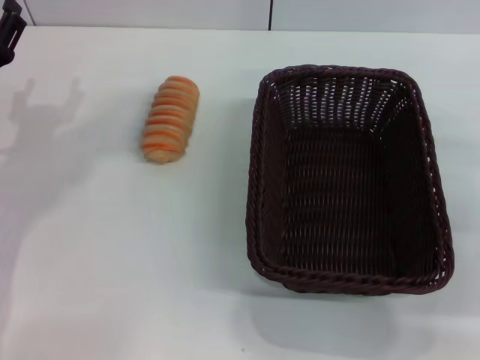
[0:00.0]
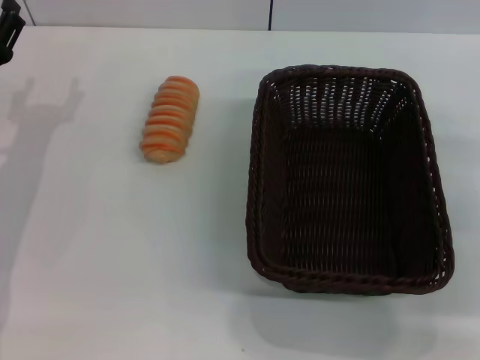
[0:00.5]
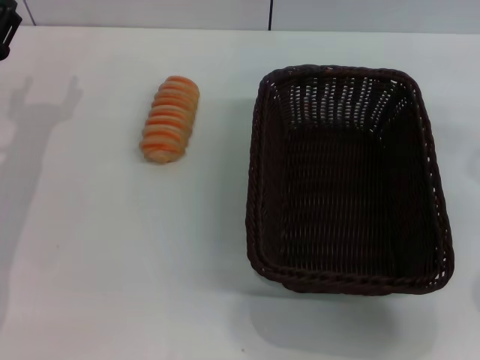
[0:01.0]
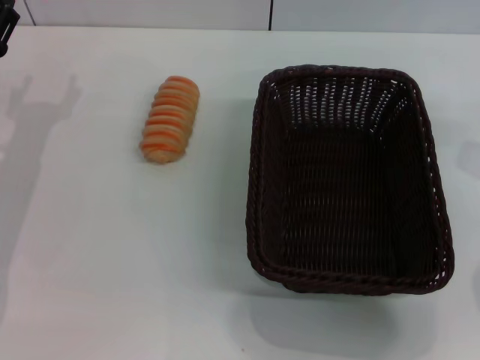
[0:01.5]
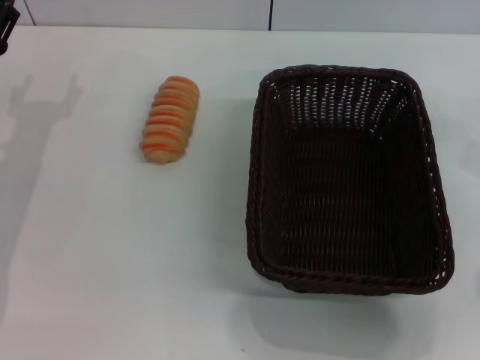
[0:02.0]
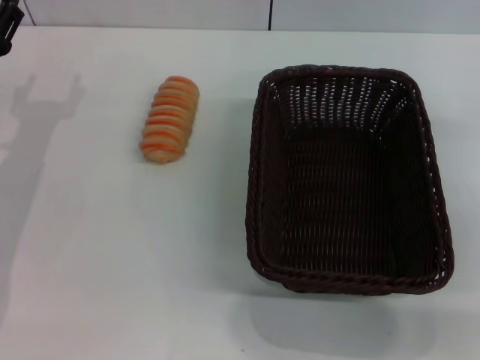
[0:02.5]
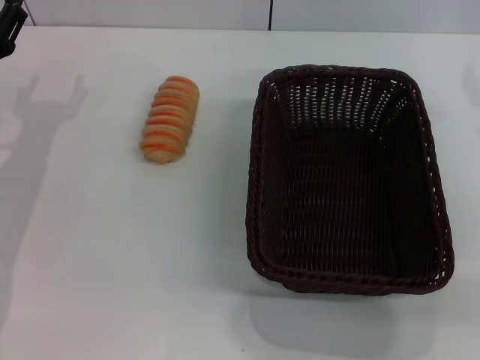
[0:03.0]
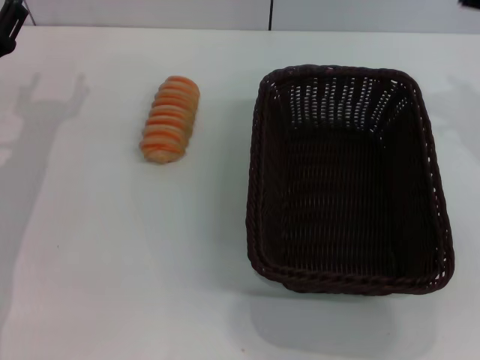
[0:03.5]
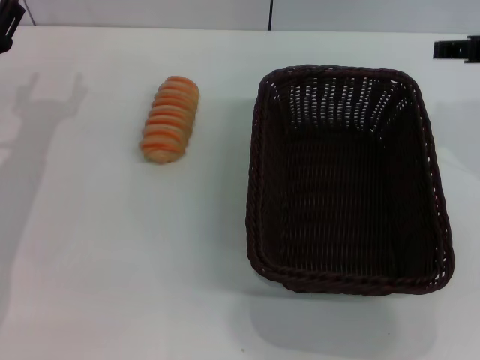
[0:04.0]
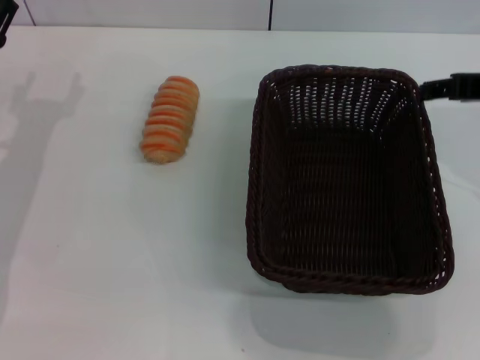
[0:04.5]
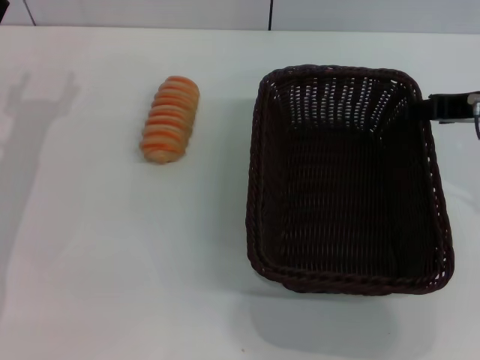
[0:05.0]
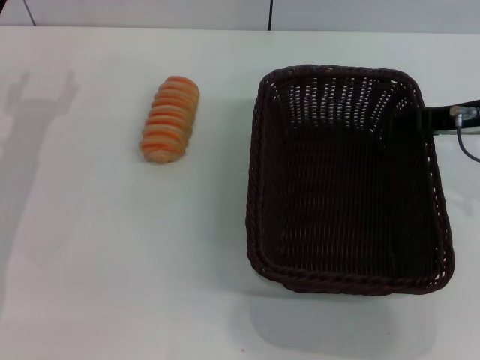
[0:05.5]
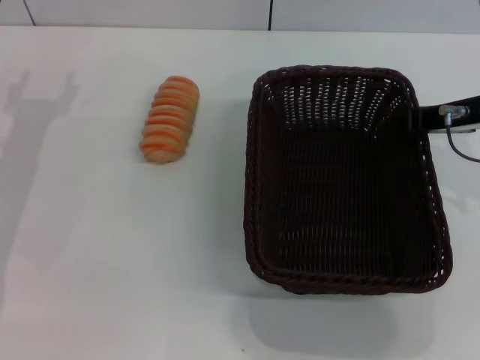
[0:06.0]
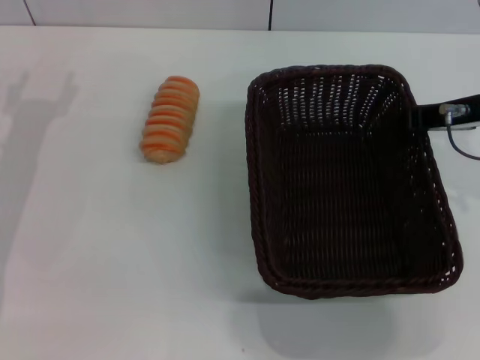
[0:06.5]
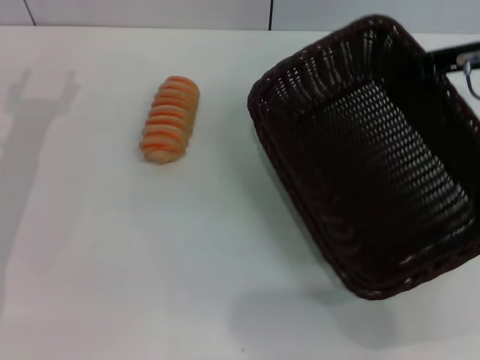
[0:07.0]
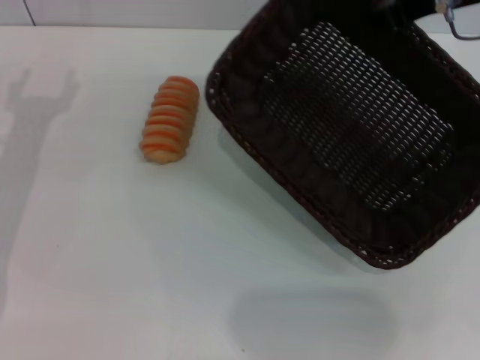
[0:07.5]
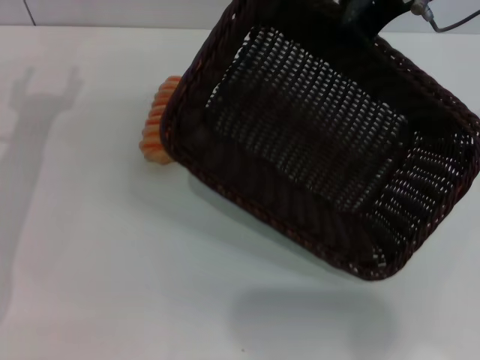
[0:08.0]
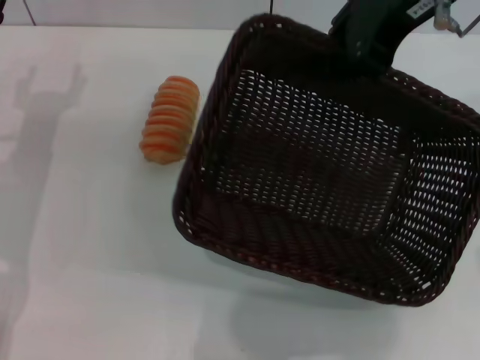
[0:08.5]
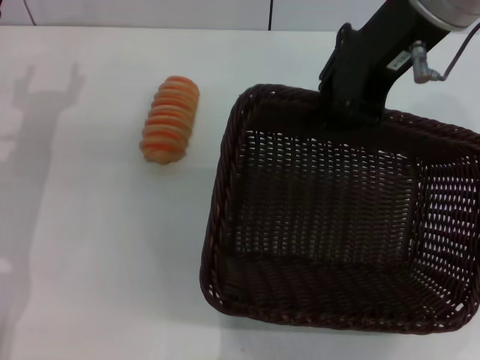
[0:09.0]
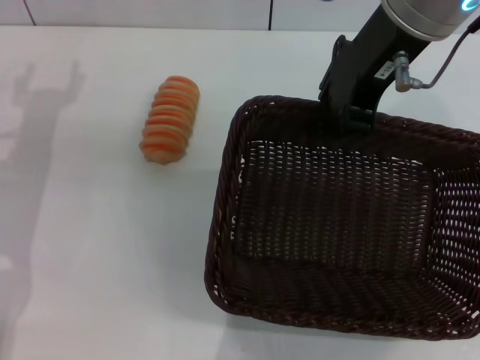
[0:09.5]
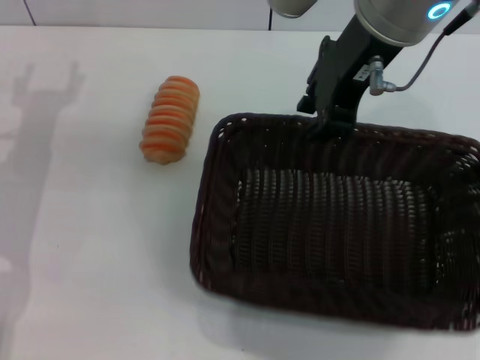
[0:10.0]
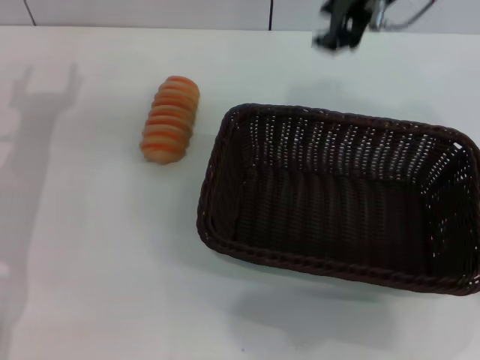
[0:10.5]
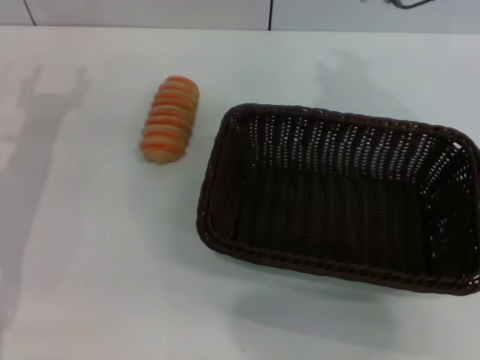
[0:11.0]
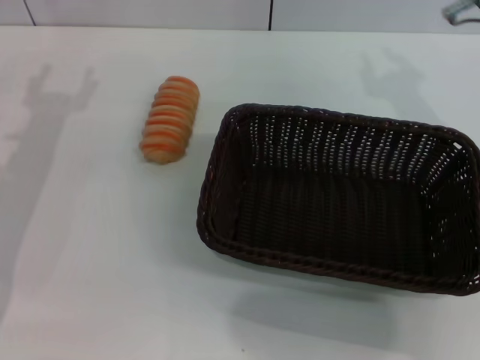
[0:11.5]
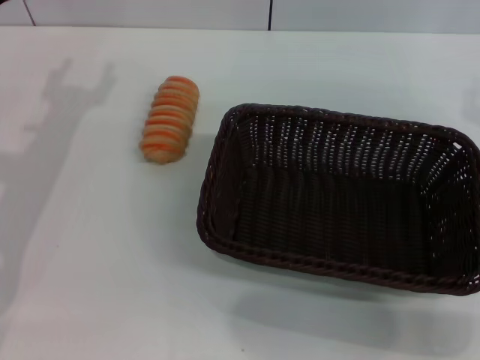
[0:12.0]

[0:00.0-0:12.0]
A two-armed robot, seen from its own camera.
Step, 0:00.0 to 0:07.0: Pick up the dark basket with the right gripper.
Step, 0:07.5 to 0:10.0: Place the dark basket in the center of view with the right gripper.
0:00.0 to 0:02.0: The right gripper shifts roughly 5 cm upward.
0:02.0 to 0:04.0: The right gripper heads upward, covering some 5 cm.
0:04.0 to 0:06.0: The right gripper shifts approximately 5 cm downward.
0:06.0 to 0:08.0: The right gripper heads upward and to the left, covering roughly 15 cm, and closes up.
0:08.0 to 0:10.0: The right gripper is displaced to the left by roughly 10 cm.
0:10.0 to 0:12.0: The right gripper is displaced to the right and downward by approximately 25 cm.

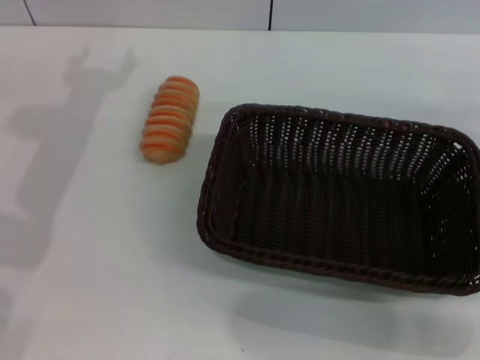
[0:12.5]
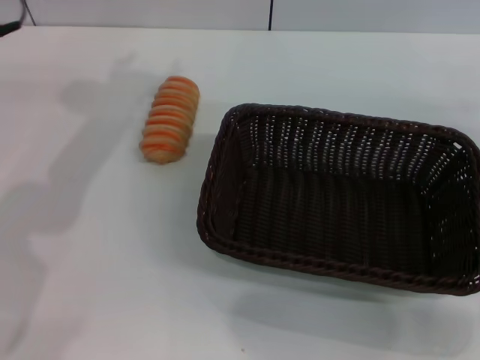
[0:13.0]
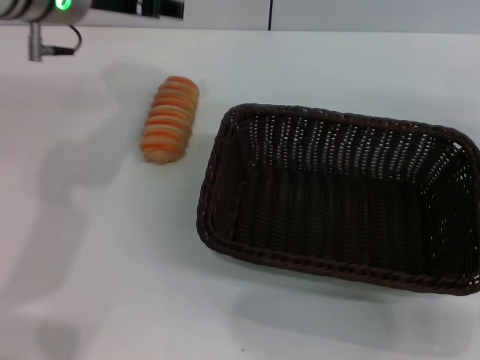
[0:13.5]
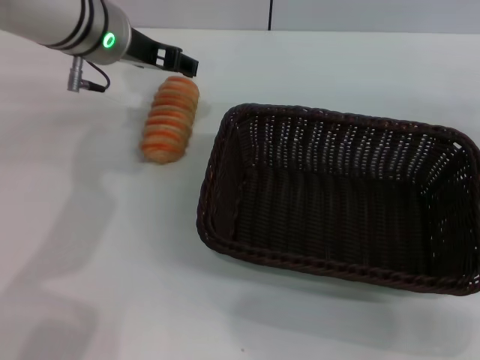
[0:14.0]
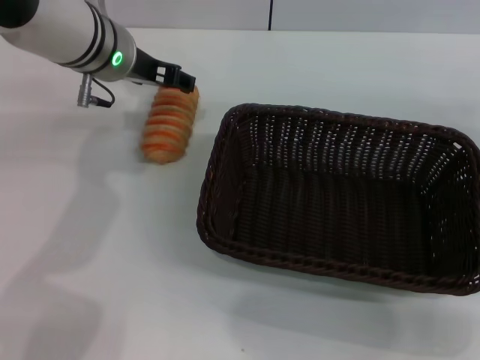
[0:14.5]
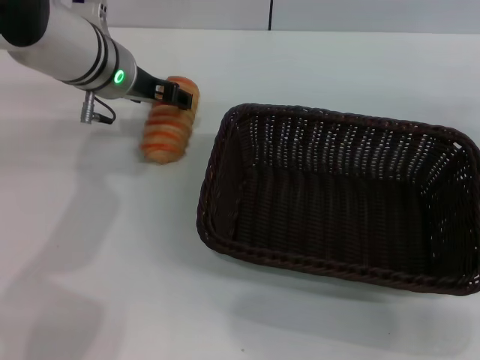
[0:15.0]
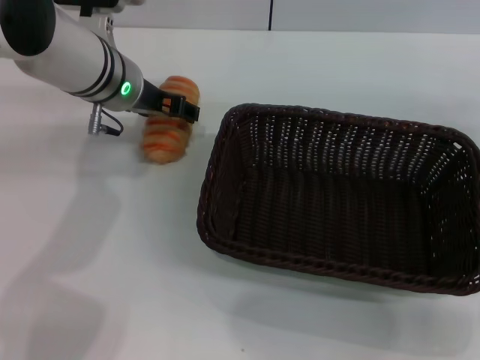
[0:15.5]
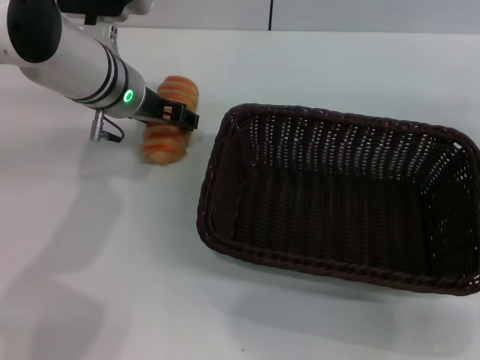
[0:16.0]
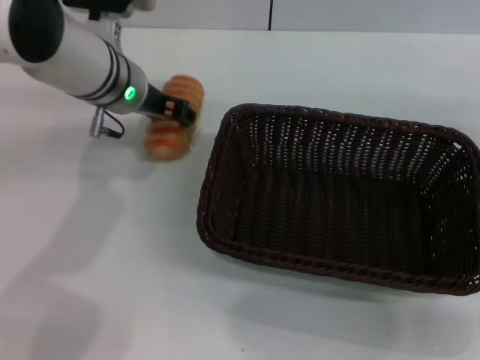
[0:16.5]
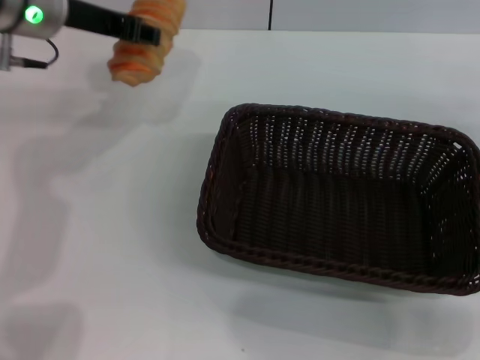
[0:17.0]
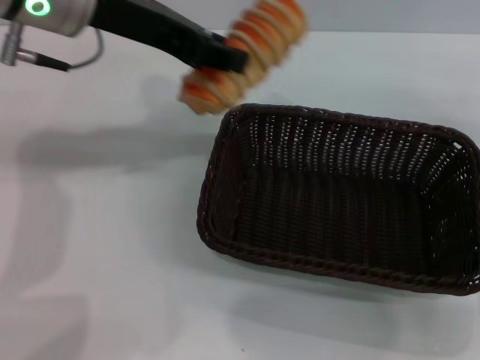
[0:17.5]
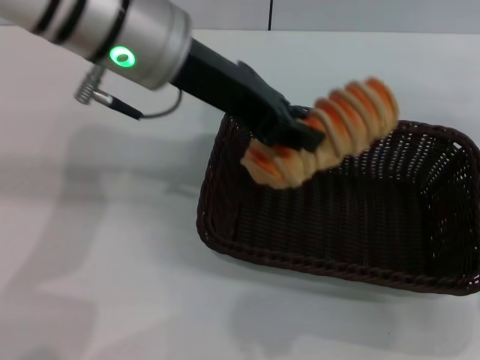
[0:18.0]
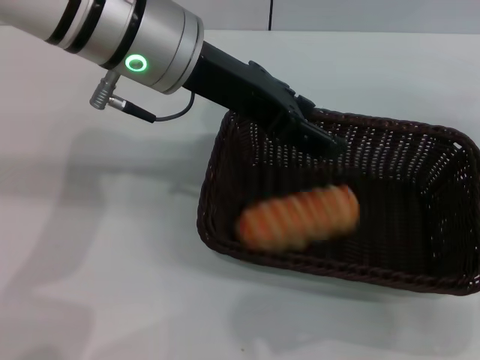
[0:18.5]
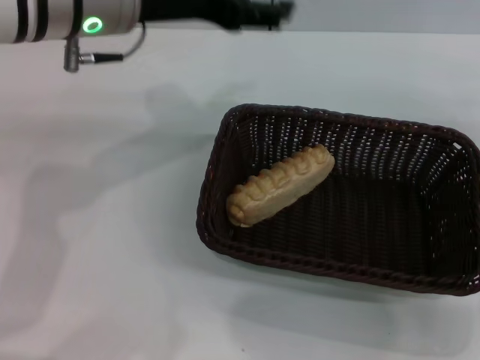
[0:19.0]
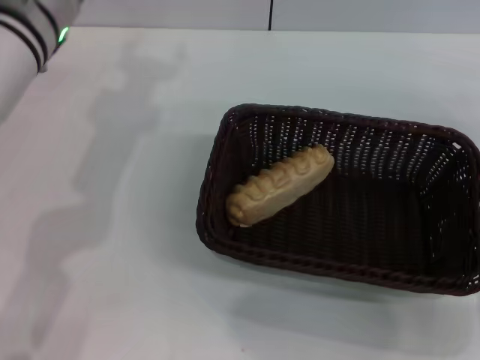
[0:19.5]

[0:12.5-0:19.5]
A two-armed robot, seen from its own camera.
Step, 0:12.5 to 0:16.5: Pick up the long bread with the left gripper.
Step, 0:17.0 to 0:18.5: Place the long bread into the dark basket with the left gripper.
0:12.5 to 0:14.5: The left gripper heads to the right and forward, covering approximately 10 cm.
0:14.5 to 0:16.0: The grippers make only small movements.
0:16.0 to 0:17.5: The left gripper travels upward by approximately 15 cm, and closes up.
0:17.5 to 0:19.5: The left gripper shifts approximately 10 cm downward, and opens its fingers.
